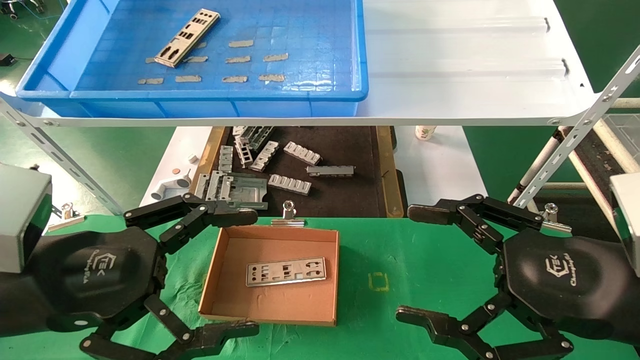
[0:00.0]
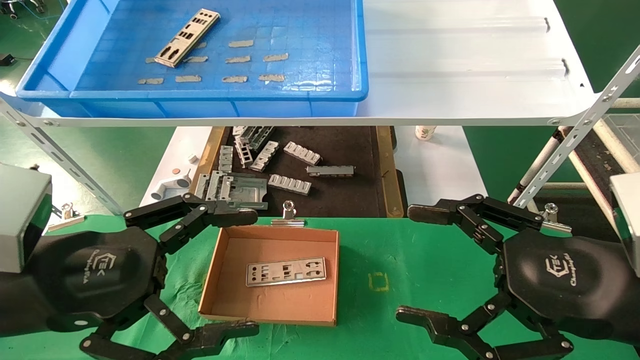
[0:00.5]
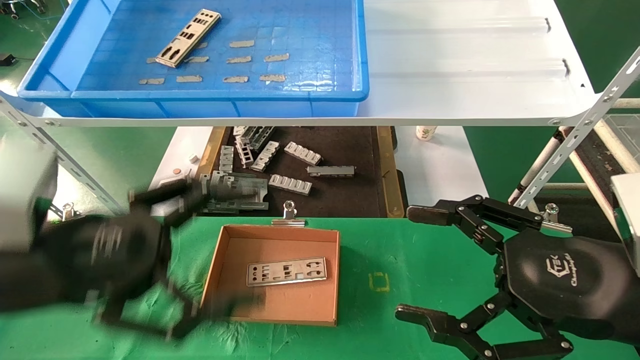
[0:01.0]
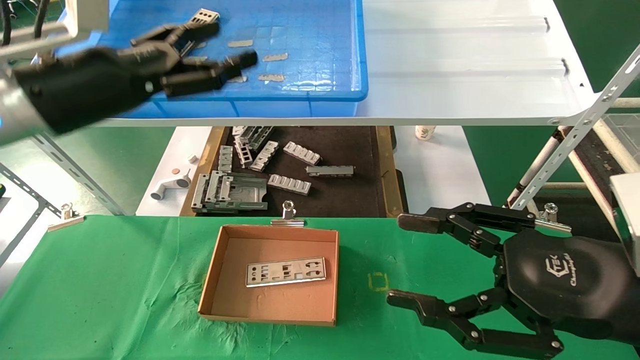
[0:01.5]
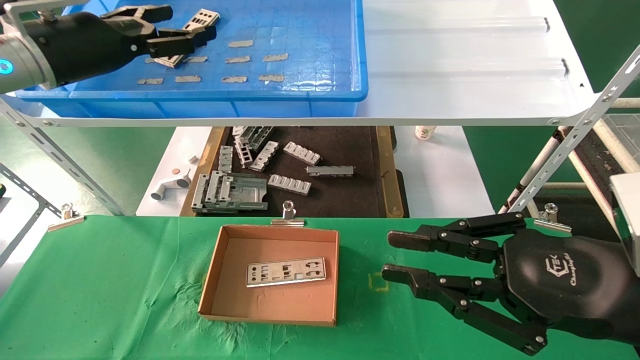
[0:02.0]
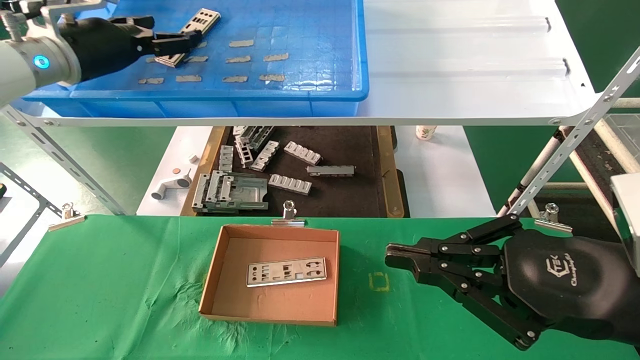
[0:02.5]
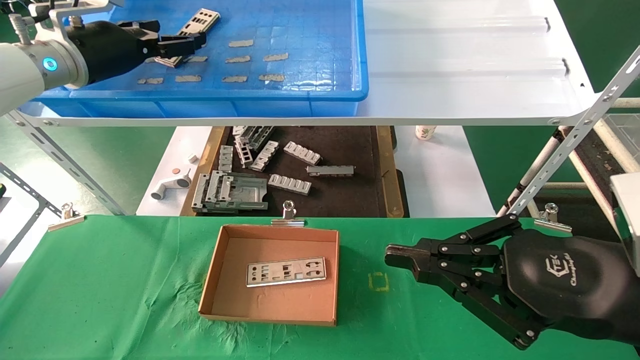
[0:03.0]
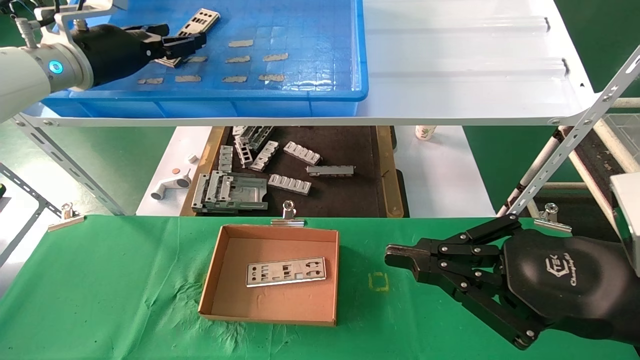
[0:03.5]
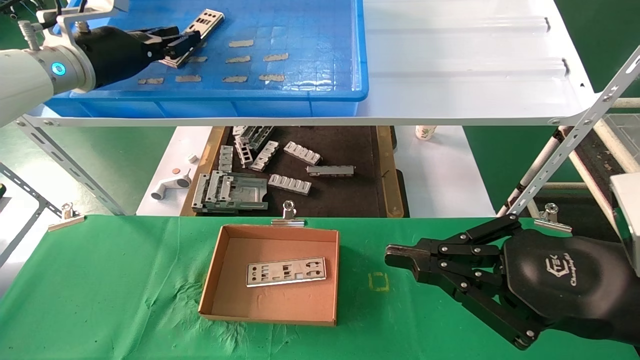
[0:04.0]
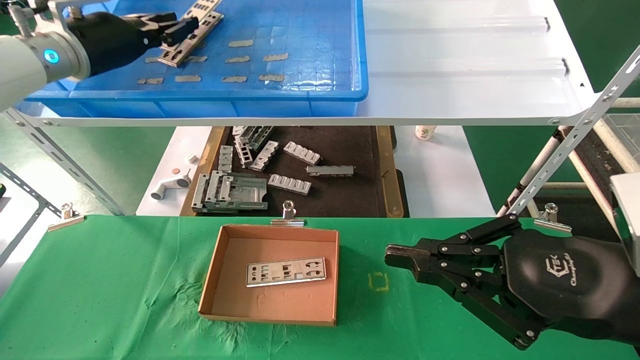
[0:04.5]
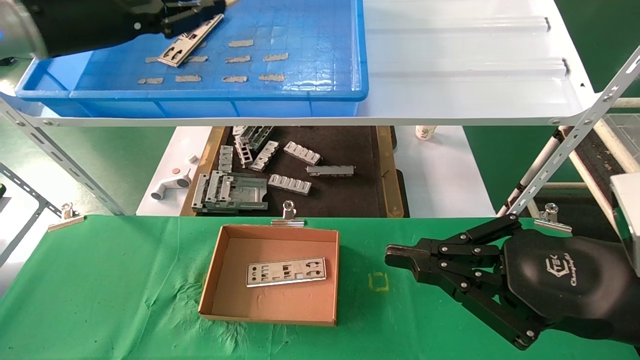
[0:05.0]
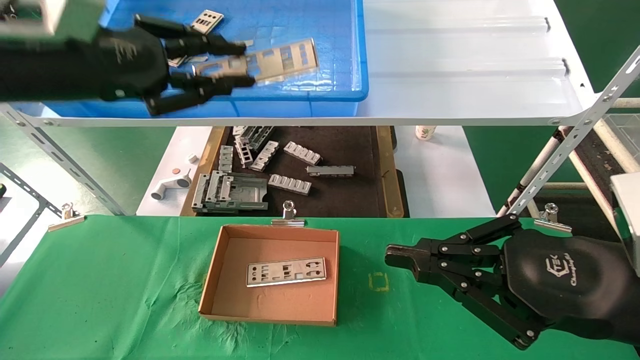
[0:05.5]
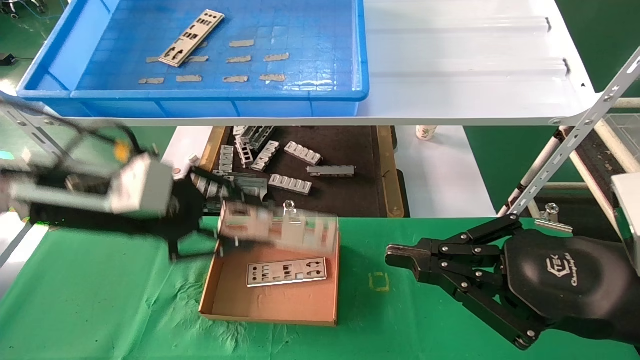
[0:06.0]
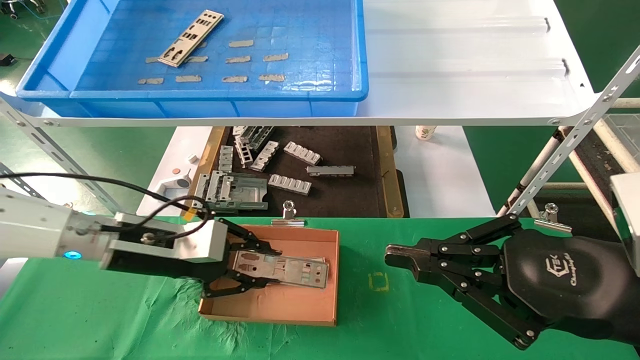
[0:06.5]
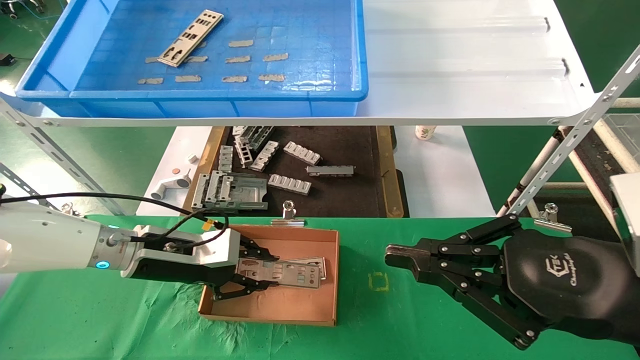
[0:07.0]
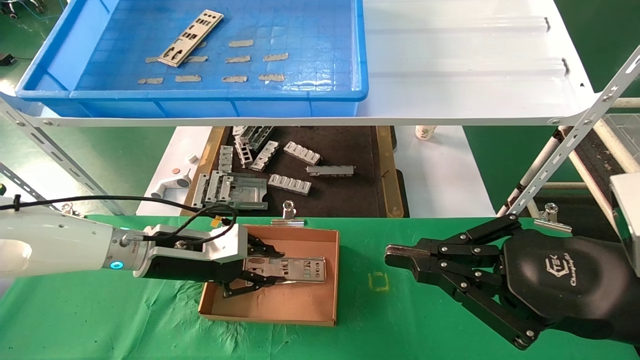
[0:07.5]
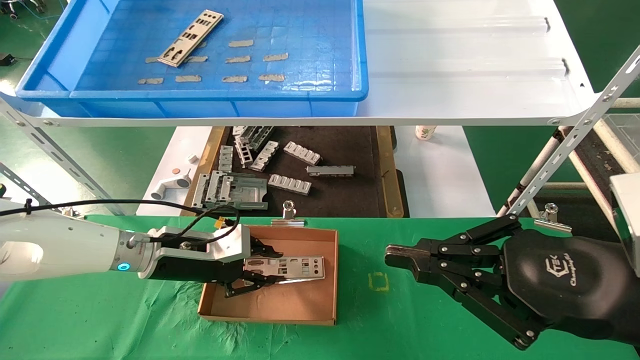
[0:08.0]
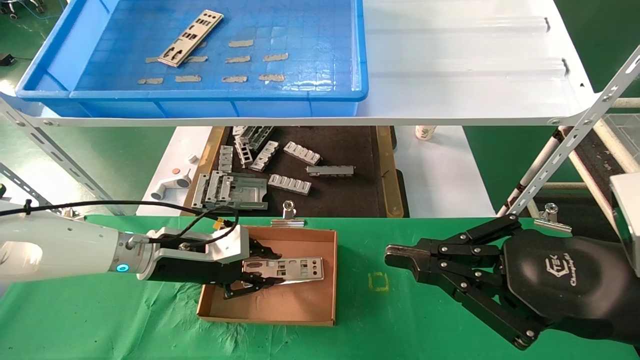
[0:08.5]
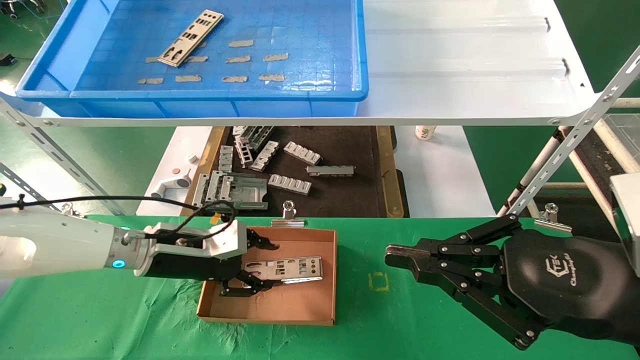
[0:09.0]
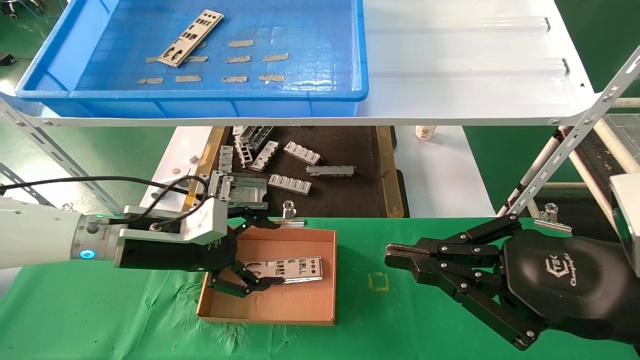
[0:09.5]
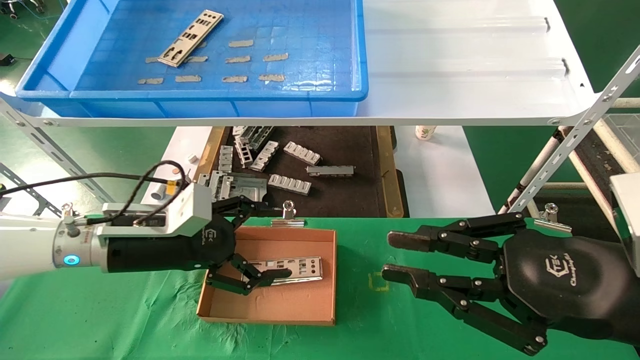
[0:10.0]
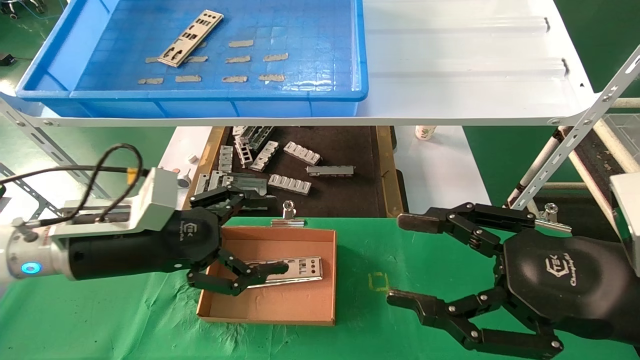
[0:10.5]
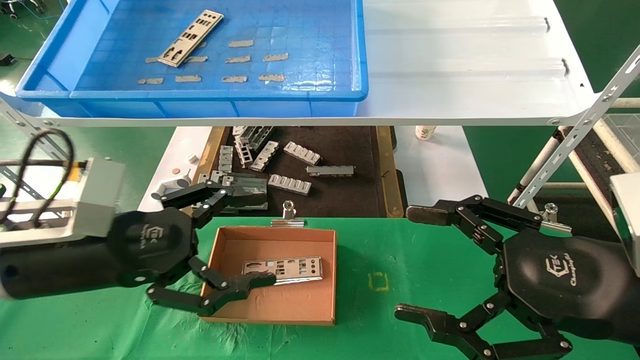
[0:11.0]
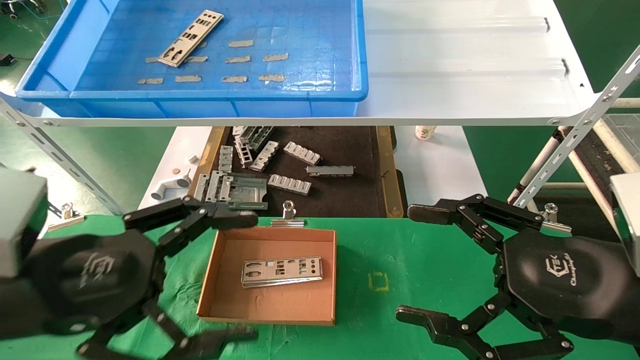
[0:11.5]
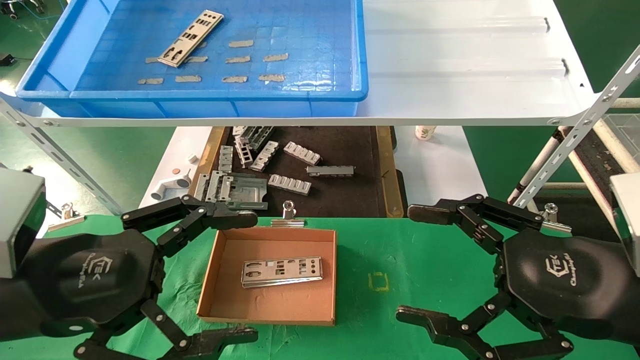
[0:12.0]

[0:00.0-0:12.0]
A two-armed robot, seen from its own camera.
Task of the whole recording: pick up the parts on the tray and put them in the cardboard box.
Step, 0:01.5 to 0:04.5: Pick up the IO bracket from the container box.
Step, 0:05.0 to 0:08.5: Place the IO bracket into the ingredient slot.
0:00.0 to 0:02.0: The right gripper closes. Meanwhile the left gripper moves forward and upward, about 25 cm.
0:02.0 to 0:04.0: The left gripper closes its fingers.
0:04.0 to 0:06.0: The left gripper moves backward, downward and to the right, some 20 cm.
0:06.0 to 0:08.0: The left gripper heads downward and forward, covering approximately 20 cm.
0:08.0 to 0:10.0: The left gripper is displaced backward and upward by approximately 10 cm, and opens.
0:10.0 to 0:12.0: The left gripper moves backward, about 15 cm; the right gripper opens its fingers.

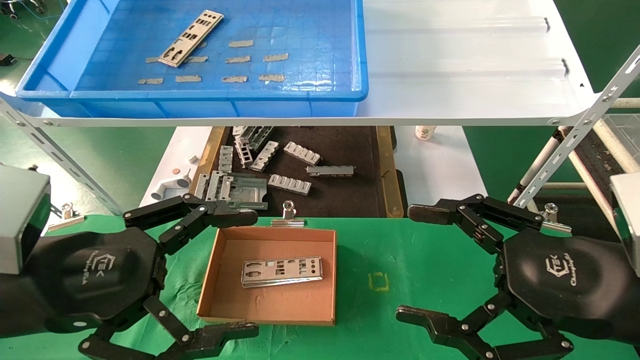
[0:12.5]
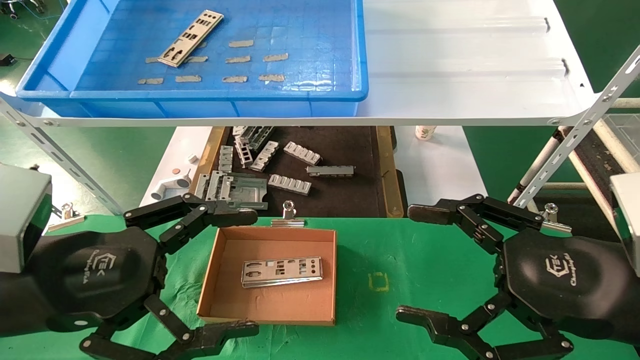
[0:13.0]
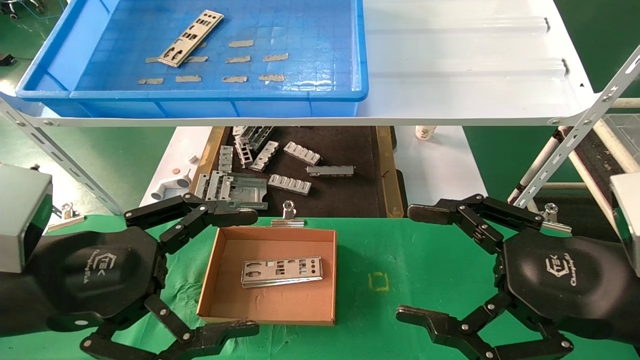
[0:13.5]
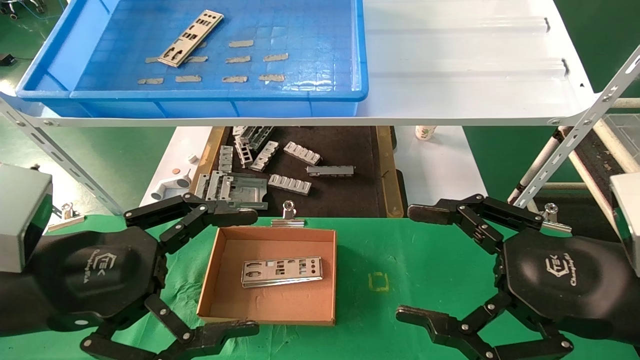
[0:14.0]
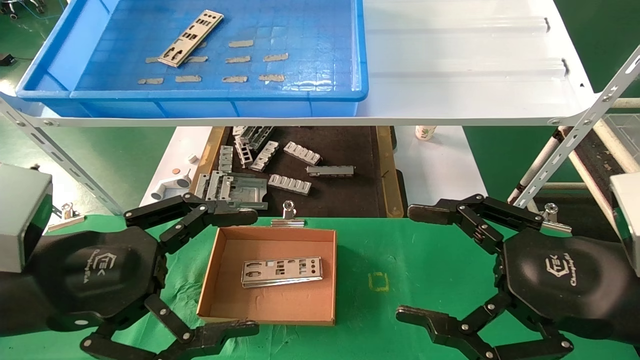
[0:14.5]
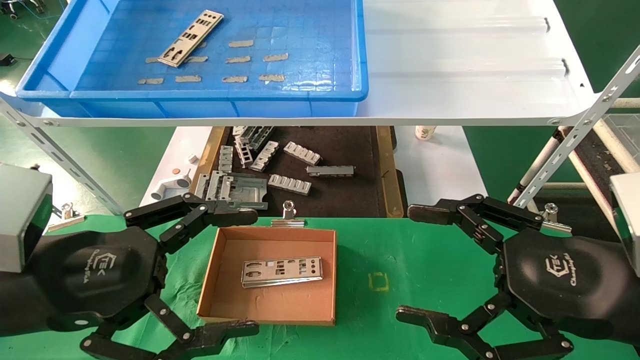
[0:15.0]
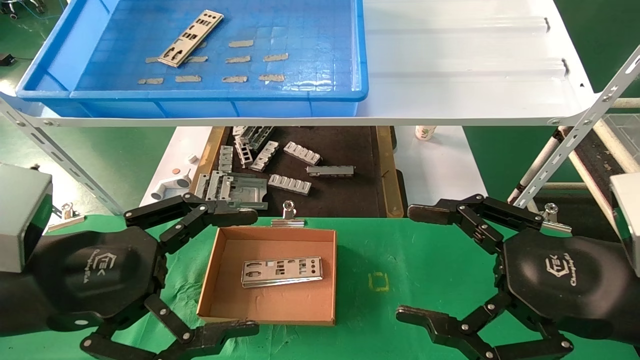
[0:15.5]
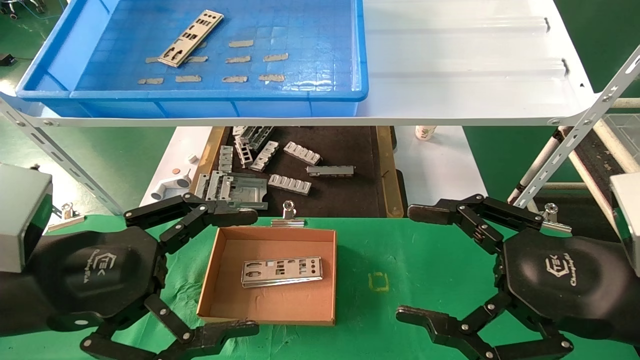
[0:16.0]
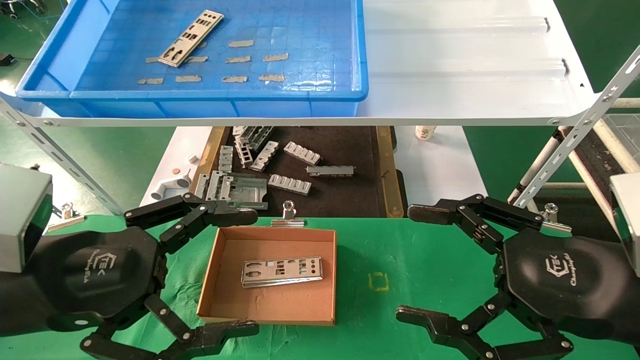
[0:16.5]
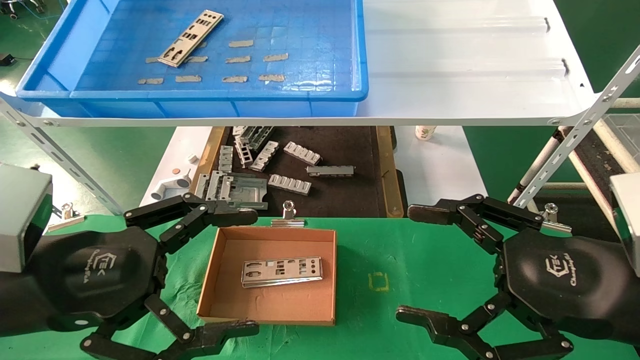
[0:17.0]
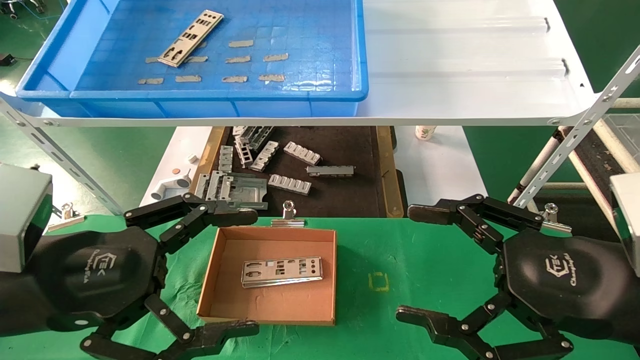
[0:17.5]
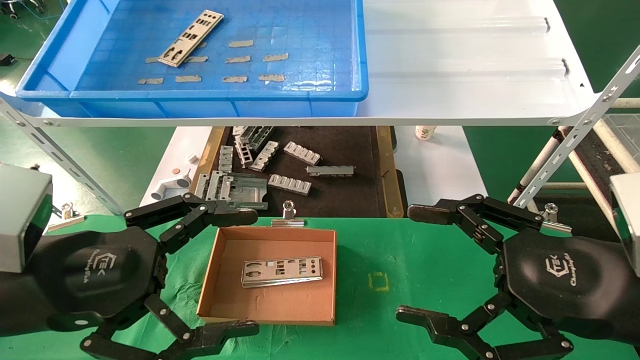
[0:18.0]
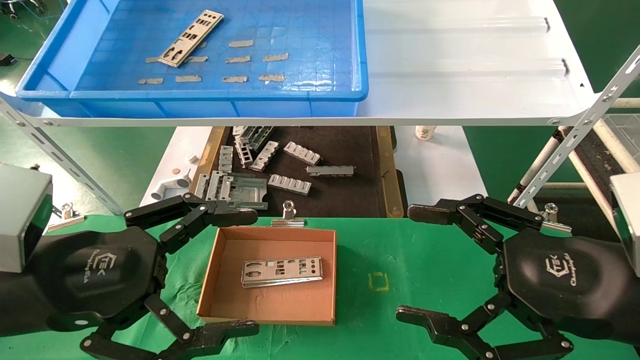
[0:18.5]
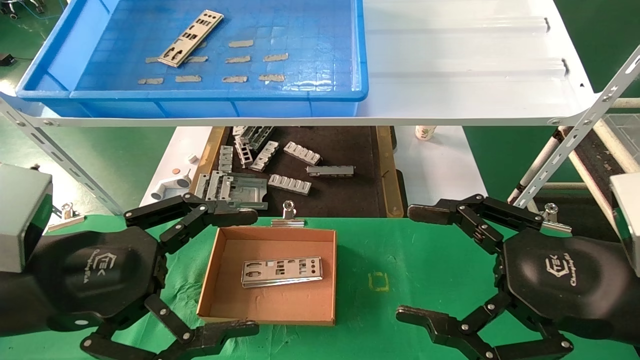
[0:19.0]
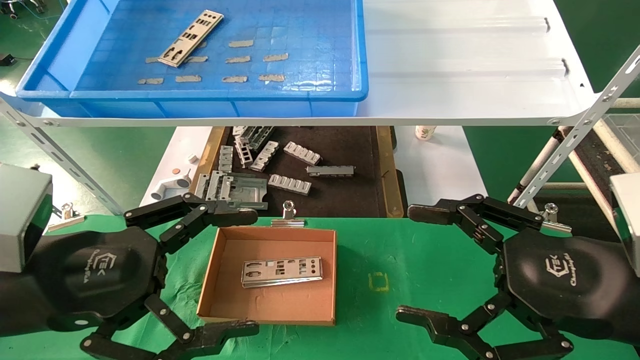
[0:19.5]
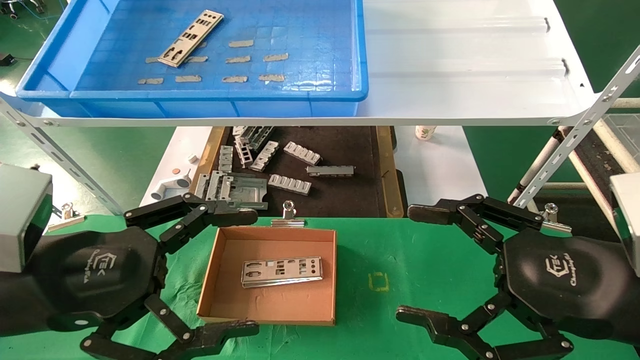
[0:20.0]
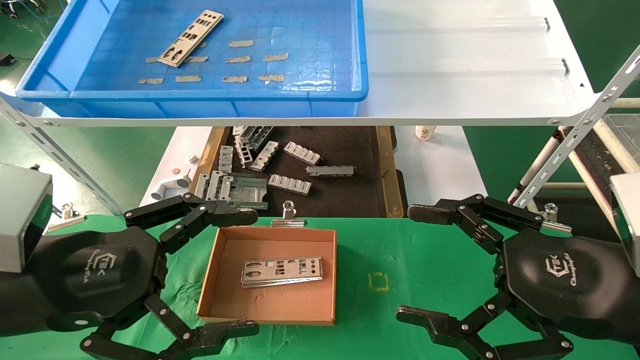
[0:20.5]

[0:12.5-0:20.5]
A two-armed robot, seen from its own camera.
Task of the whole recording: pick up the parts on the tray and put them in the cardboard box.
0:12.5 to 0:20.5: The two grippers keep their place.
